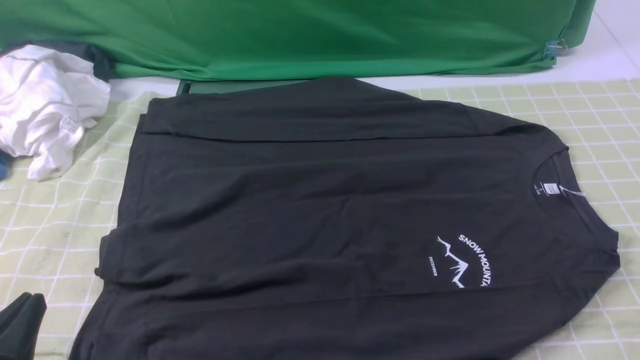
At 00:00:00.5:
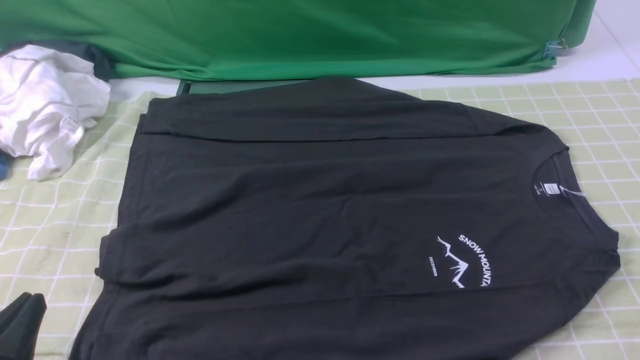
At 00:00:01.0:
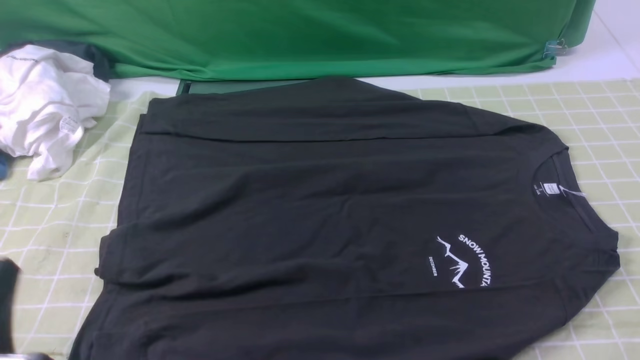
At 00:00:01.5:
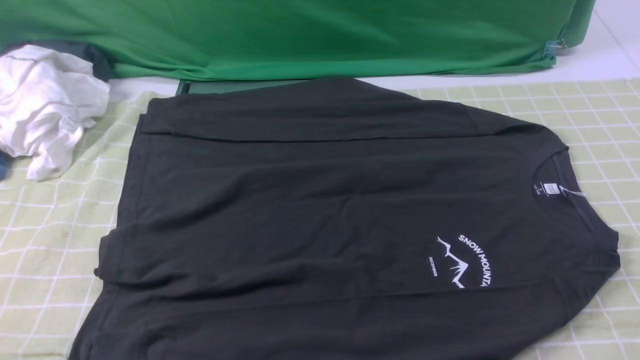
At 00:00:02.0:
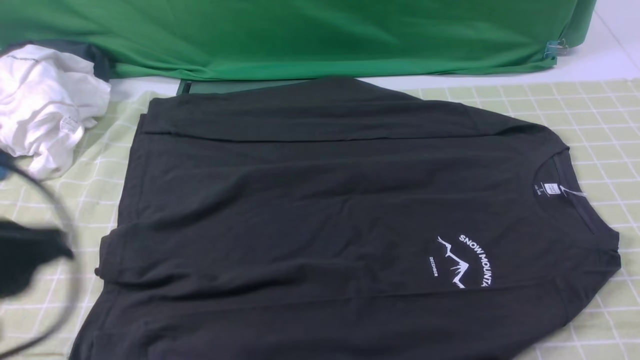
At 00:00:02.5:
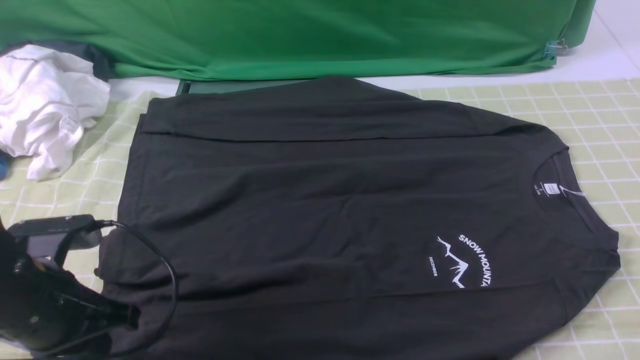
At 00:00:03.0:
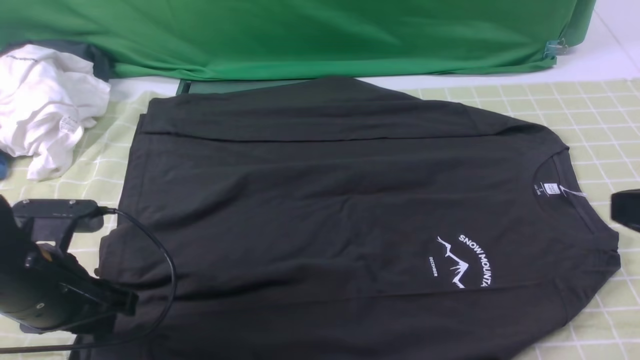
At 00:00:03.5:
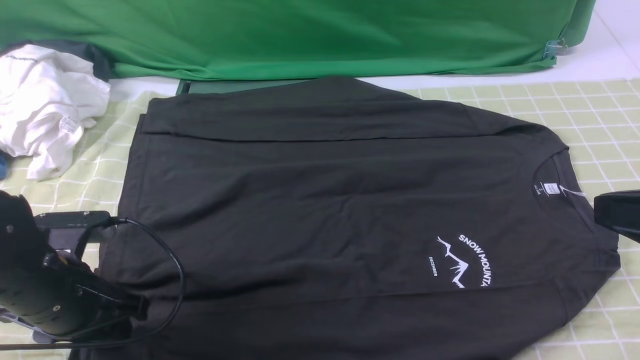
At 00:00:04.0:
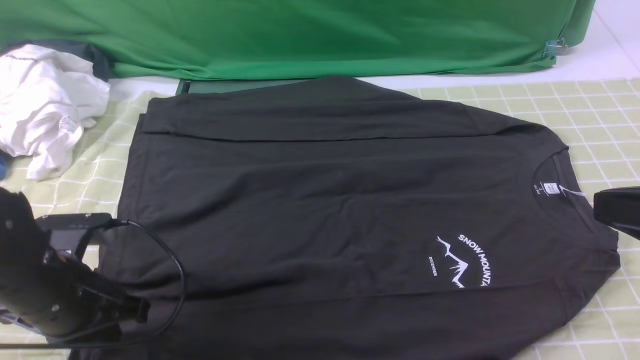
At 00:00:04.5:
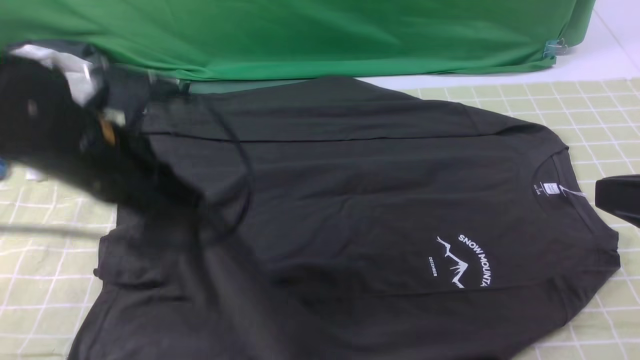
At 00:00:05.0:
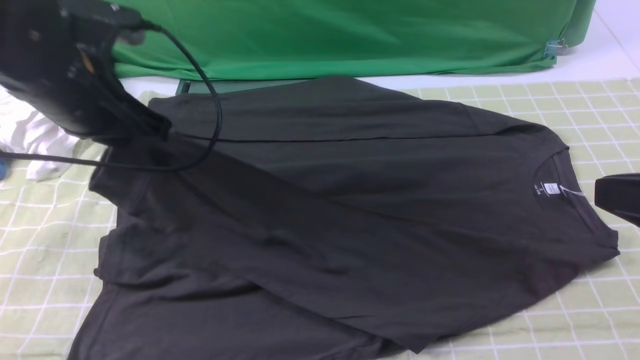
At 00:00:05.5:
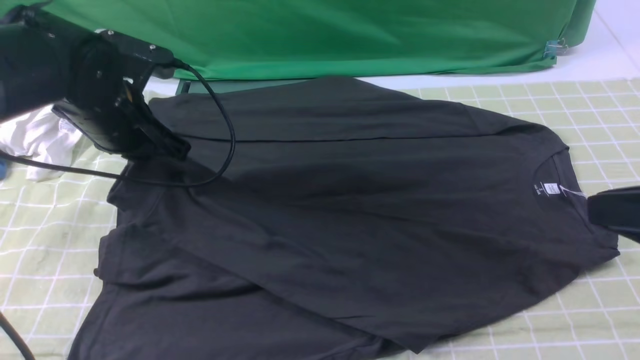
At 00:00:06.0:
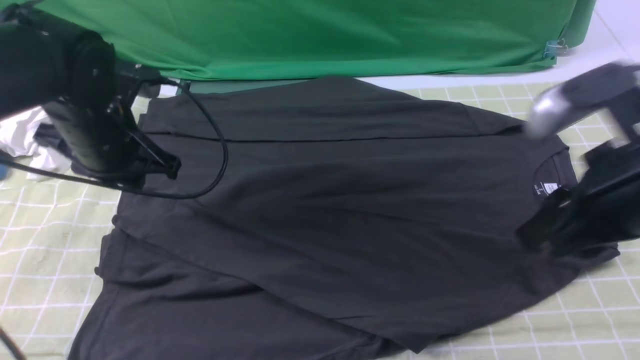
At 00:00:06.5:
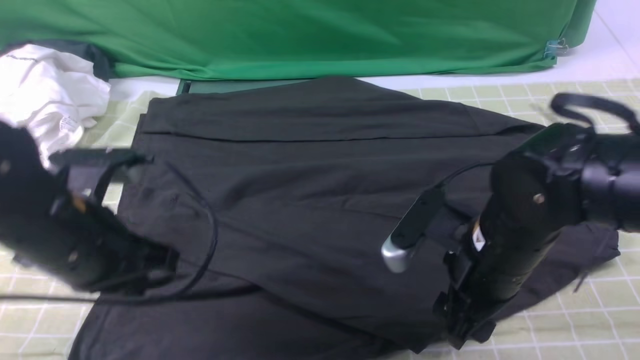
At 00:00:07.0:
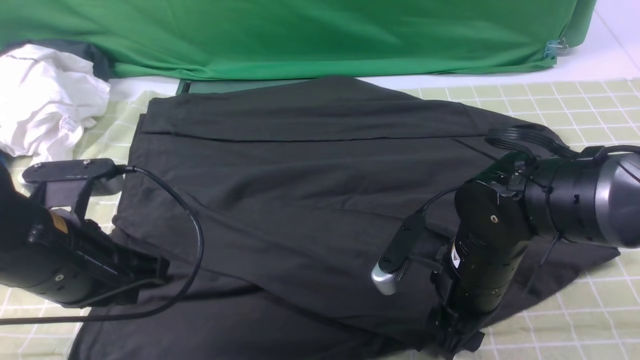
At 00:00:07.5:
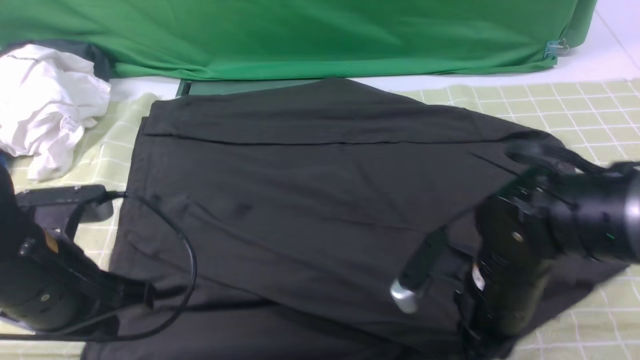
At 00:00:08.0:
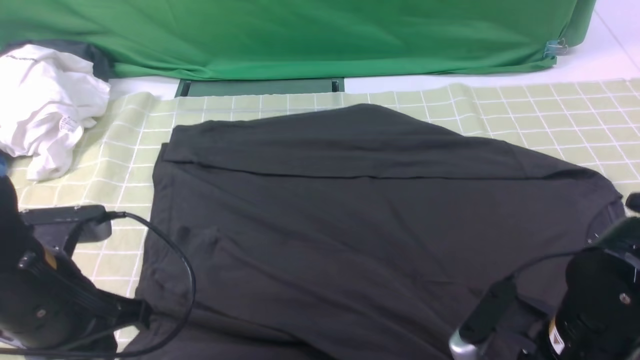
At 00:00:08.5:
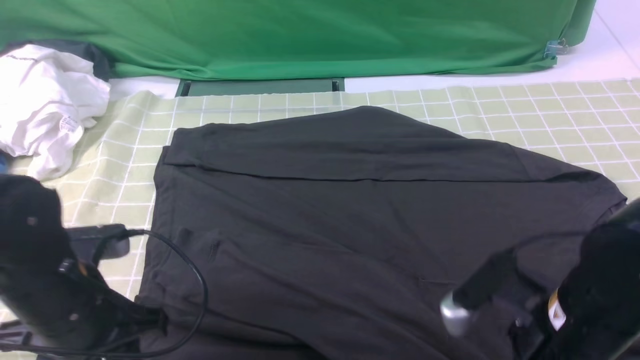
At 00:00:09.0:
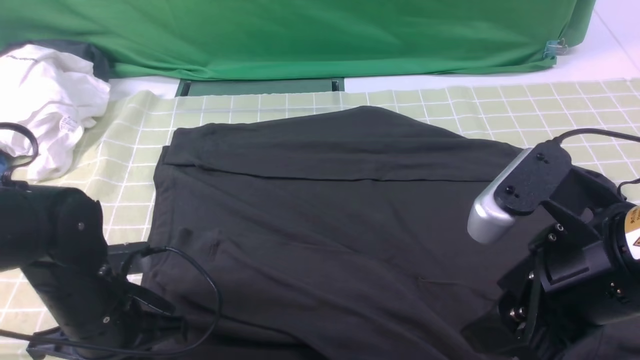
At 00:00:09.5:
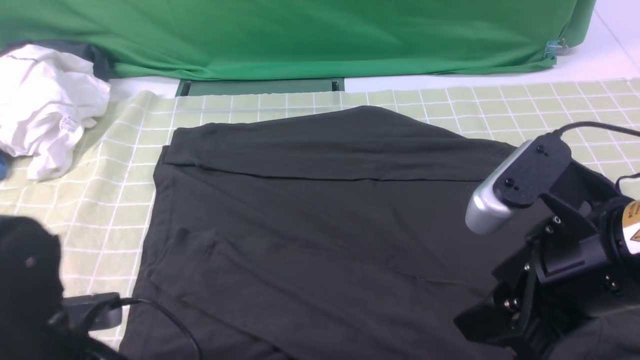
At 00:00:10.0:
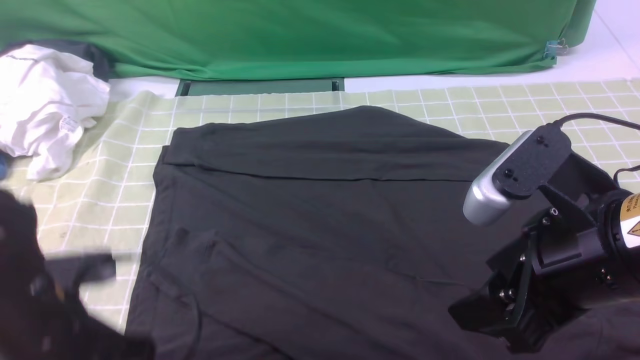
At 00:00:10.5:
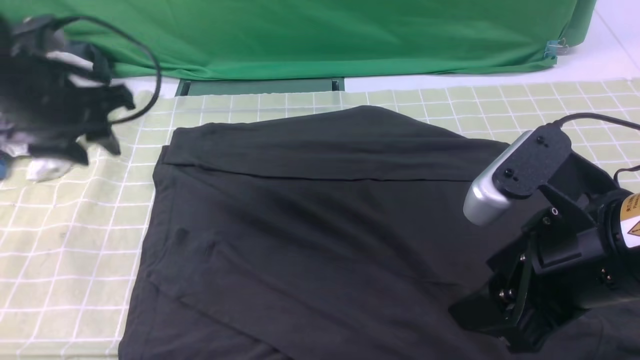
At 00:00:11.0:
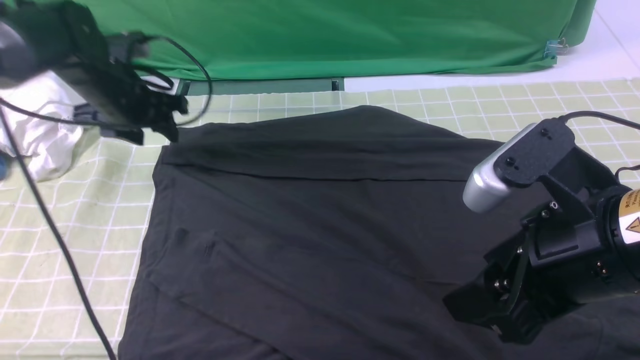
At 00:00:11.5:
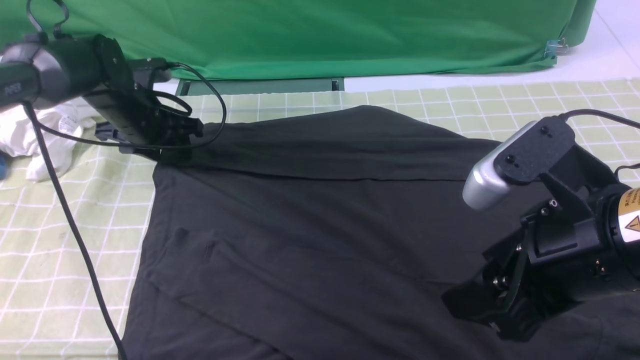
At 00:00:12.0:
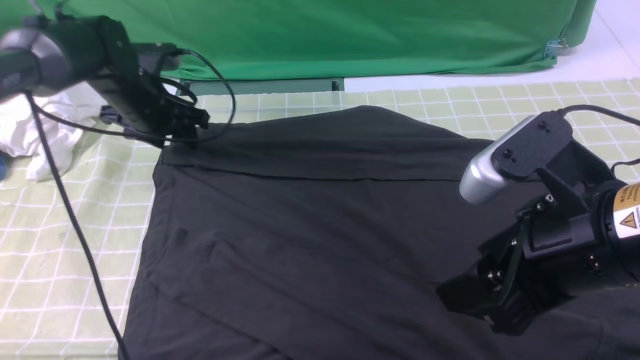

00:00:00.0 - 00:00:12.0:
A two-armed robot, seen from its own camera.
Step, 00:00:00.0 - 00:00:03.5: use the left arm to clamp the cuff closest to it.
Step, 00:00:04.0 - 00:00:05.5: use the left arm to drag and place the cuff at the centered position on the left edge of the fabric.
00:00:00.0 - 00:00:02.0: The left gripper moves upward and forward, about 10 cm.
00:00:02.0 - 00:00:04.0: The right gripper travels upward, forward and to the left by about 15 cm. Meanwhile the left gripper goes some 15 cm downward and forward, and opens and closes again.
00:00:04.0 - 00:00:06.0: The right gripper goes approximately 10 cm forward and to the left, and opens its fingers. Meanwhile the left gripper travels forward and upward by about 10 cm.
00:00:06.0 - 00:00:08.0: The right gripper heads downward and backward, covering roughly 15 cm, and closes its fingers. Meanwhile the left gripper goes roughly 15 cm backward.
00:00:08.0 - 00:00:10.0: The left gripper opens, while the right gripper heads upward, covering roughly 15 cm, and opens its fingers.
00:00:10.0 - 00:00:12.0: The left gripper goes about 30 cm forward.

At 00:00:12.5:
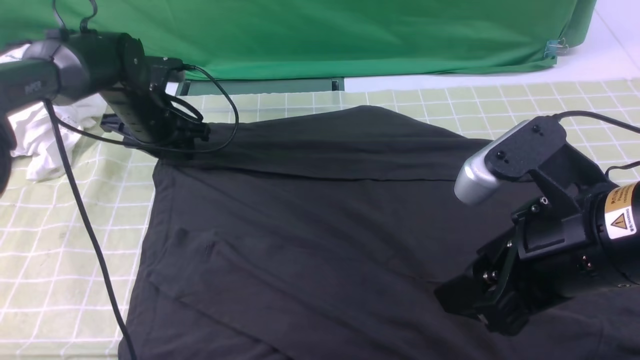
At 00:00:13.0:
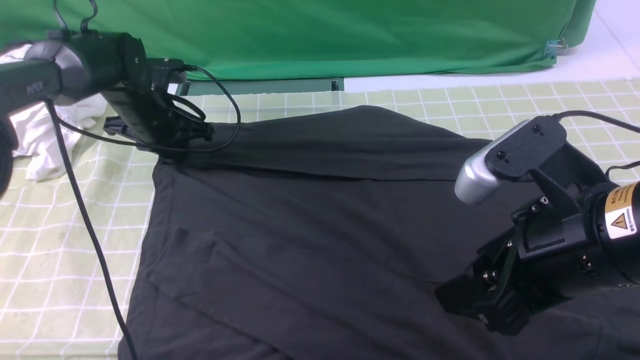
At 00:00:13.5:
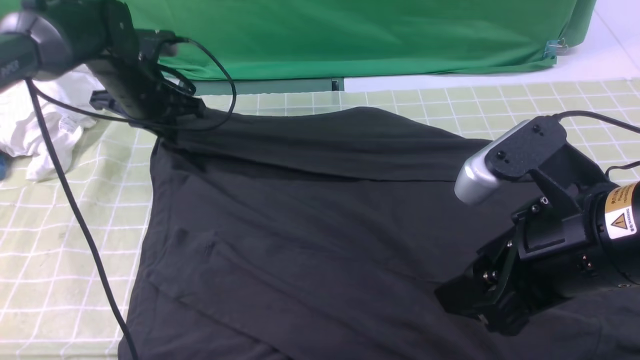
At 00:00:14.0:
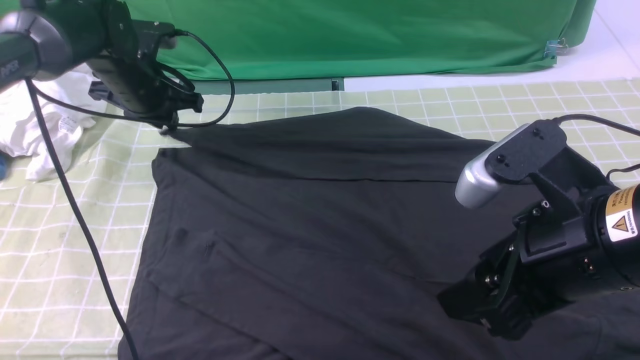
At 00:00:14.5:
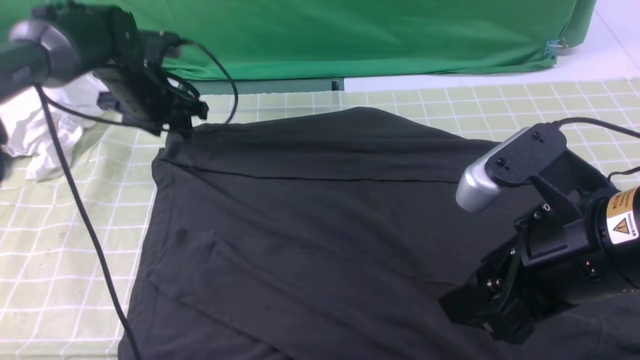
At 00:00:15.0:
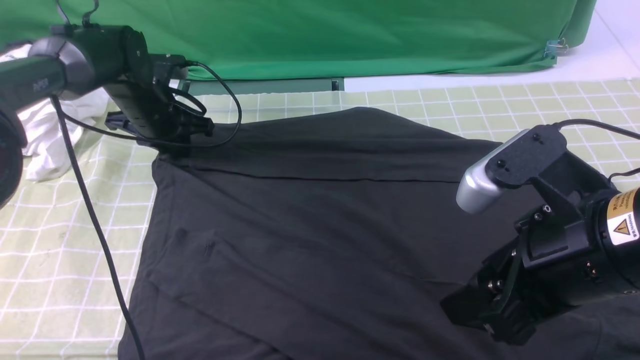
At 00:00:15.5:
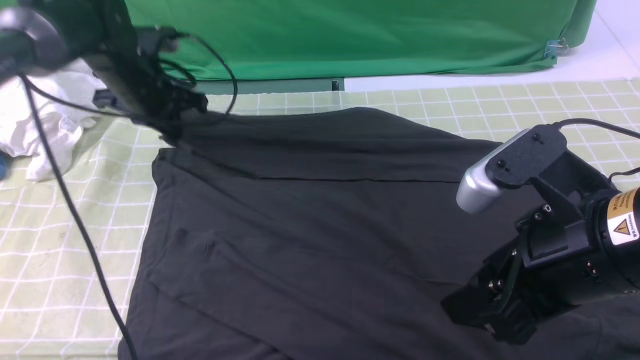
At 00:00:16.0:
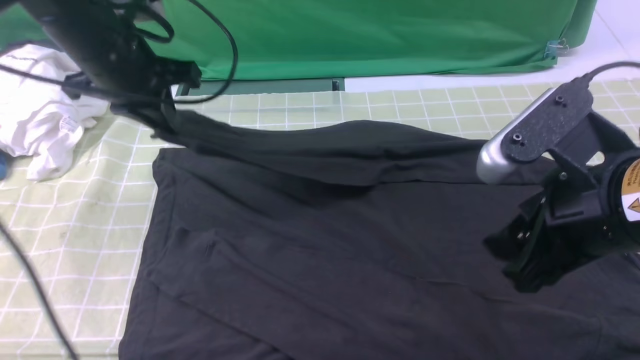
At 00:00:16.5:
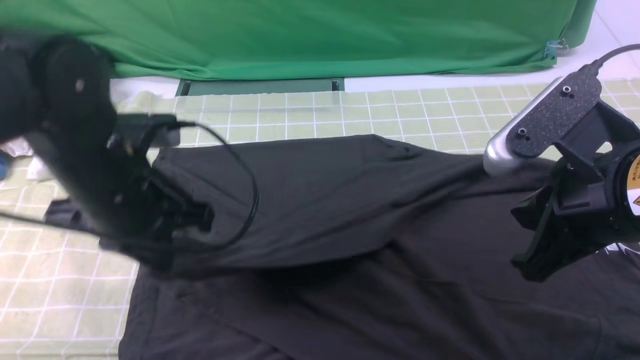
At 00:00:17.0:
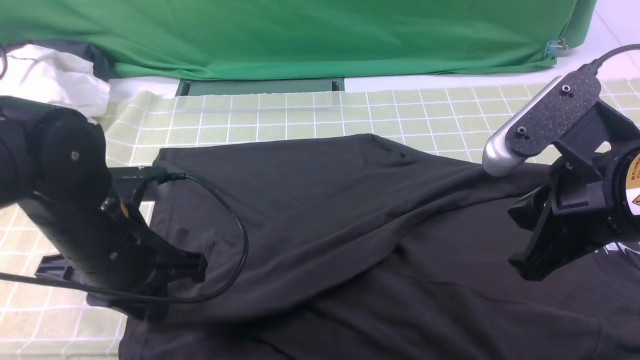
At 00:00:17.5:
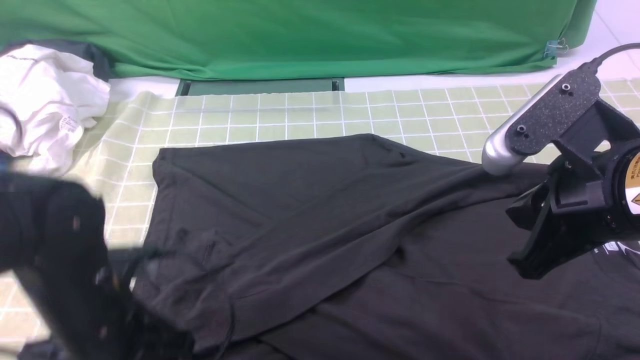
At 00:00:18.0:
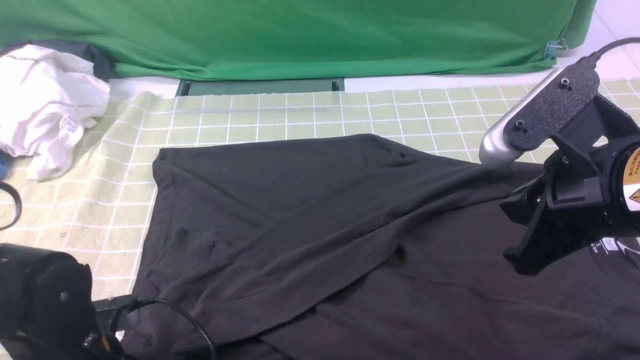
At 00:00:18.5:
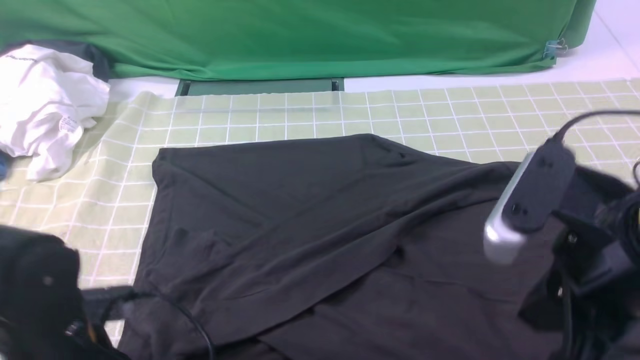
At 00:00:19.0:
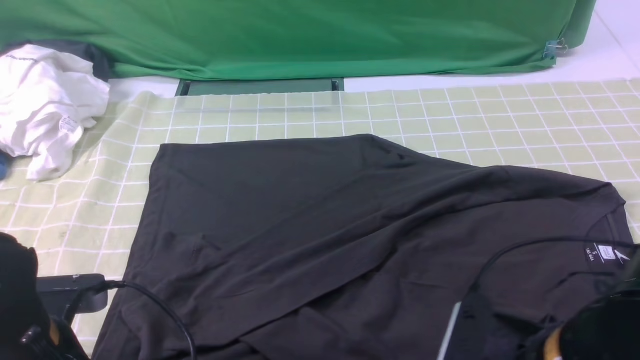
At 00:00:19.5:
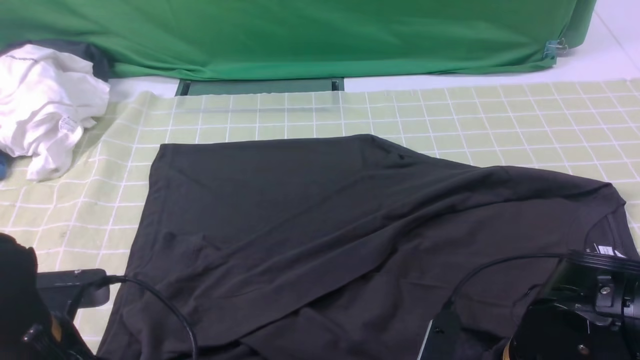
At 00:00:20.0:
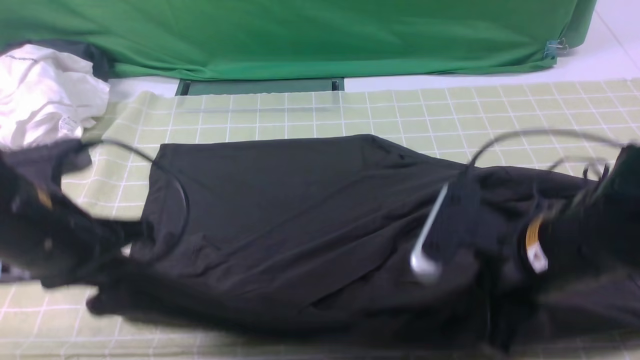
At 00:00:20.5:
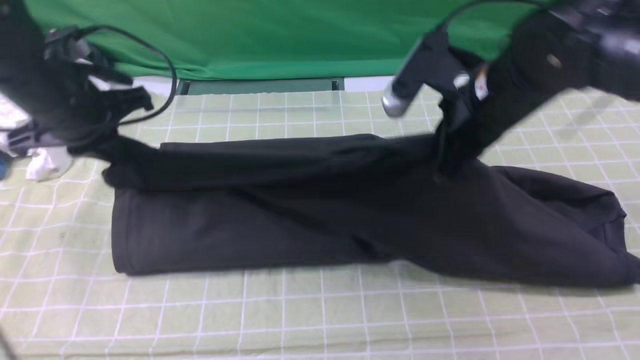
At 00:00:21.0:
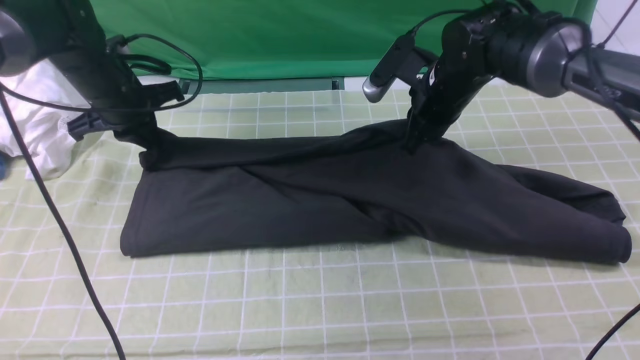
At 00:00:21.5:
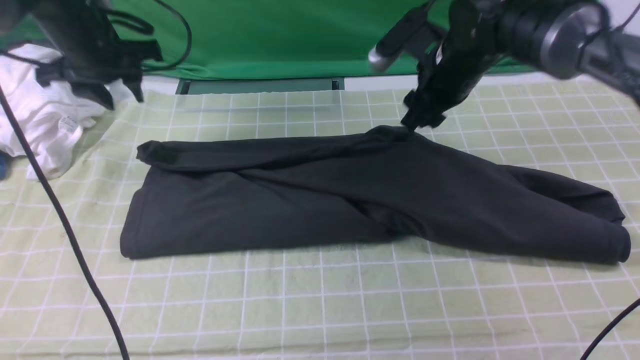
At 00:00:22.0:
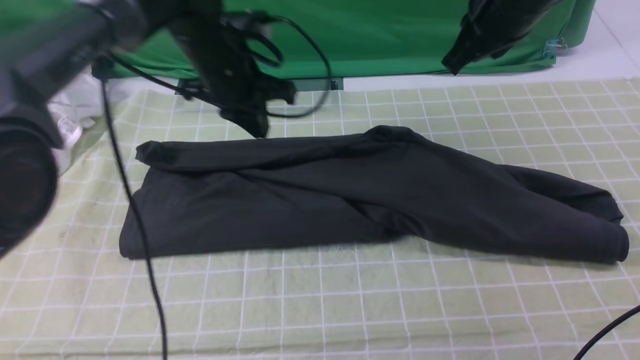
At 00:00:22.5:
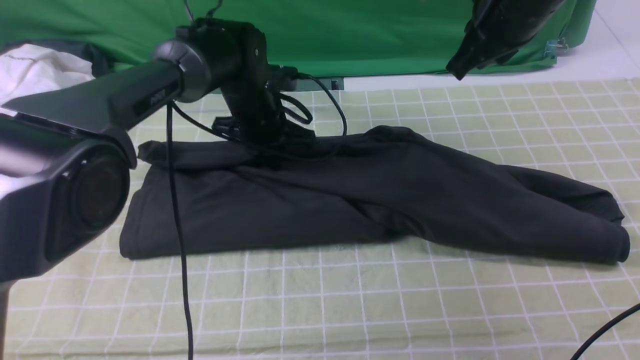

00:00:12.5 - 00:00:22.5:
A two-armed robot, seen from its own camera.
Step, 00:00:12.5 - 00:00:15.0: use the left arm to clamp the cuff farthest from it.
Step, 00:00:15.5 - 00:00:17.0: use the left arm to drag and drop the cuff onto the cuff closest to the left arm.
Step, 00:00:17.5 - 00:00:19.5: use both arms simultaneously to clamp the lower edge of the clothing fabric.
00:00:12.5 - 00:00:14.5: The left gripper closes and opens again.
00:00:14.5 - 00:00:16.5: The right gripper closes up, while the left gripper is displaced backward by approximately 20 cm, and closes.
00:00:16.5 - 00:00:18.5: The left gripper heads backward and downward, covering about 15 cm, and opens, then closes once more.
00:00:18.5 - 00:00:20.5: The two grippers go some 20 cm forward. The right gripper opens and closes again.
00:00:20.5 - 00:00:22.5: The right gripper goes about 10 cm upward, and opens, then closes again. The left gripper travels to the right, forward and downward by approximately 20 cm, and opens, then closes again.
